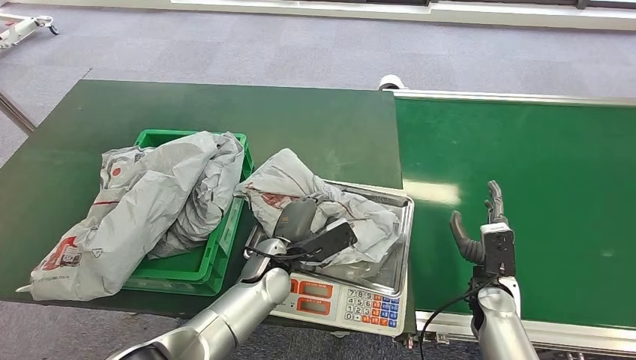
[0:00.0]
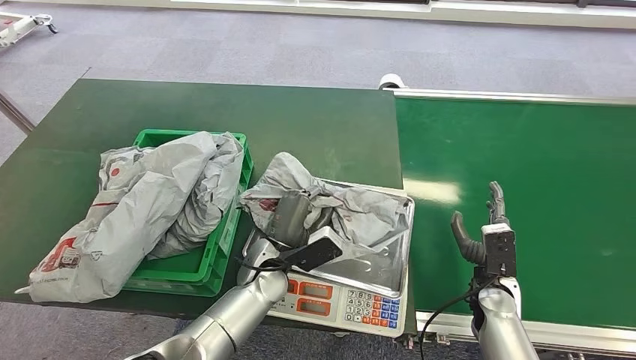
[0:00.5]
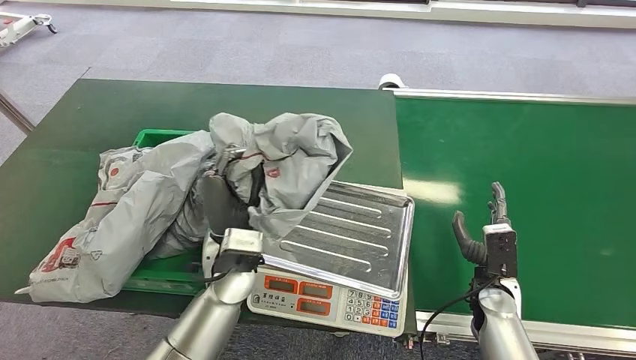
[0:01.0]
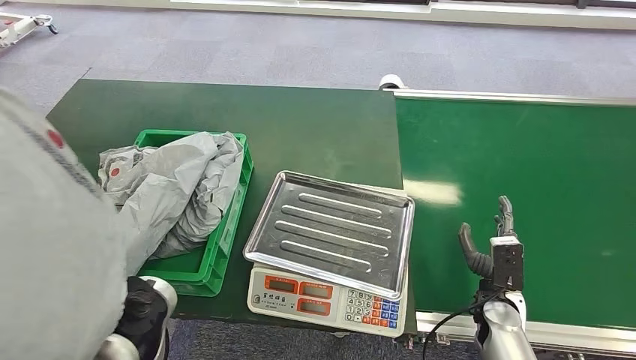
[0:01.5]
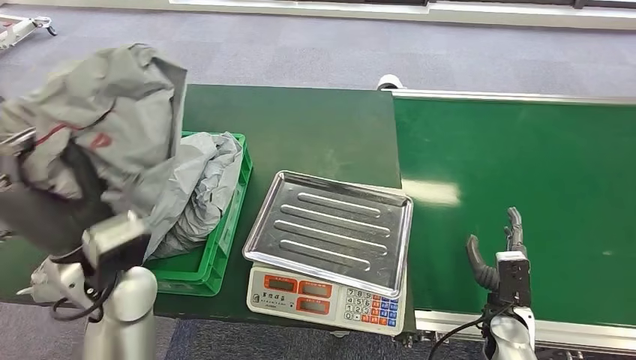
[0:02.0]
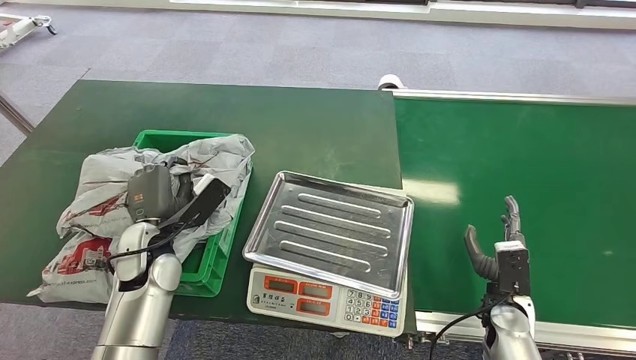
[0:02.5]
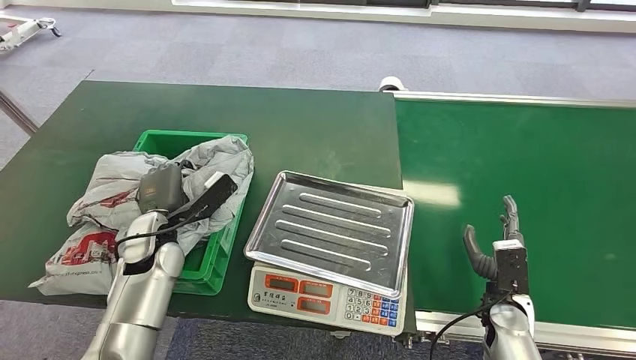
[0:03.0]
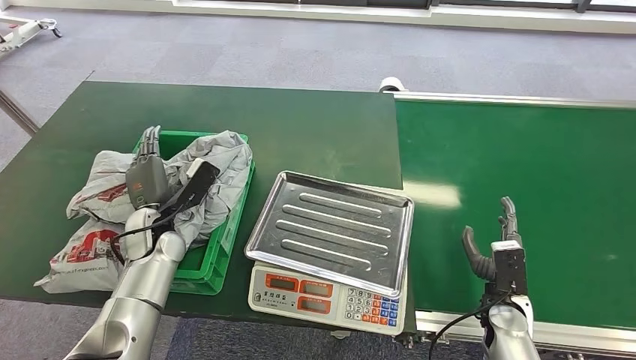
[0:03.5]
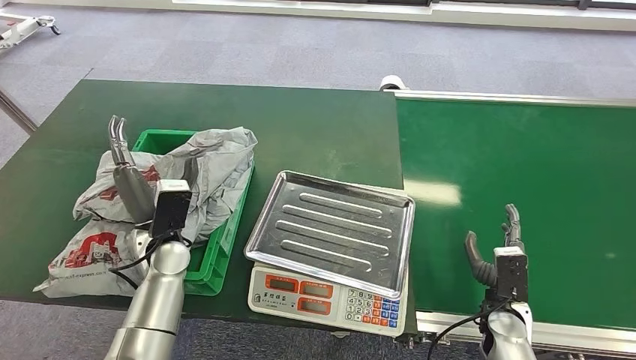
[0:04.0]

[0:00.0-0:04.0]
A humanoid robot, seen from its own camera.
Step, 0:01.5 to 0:04.0: Place the package into the parcel locker.
